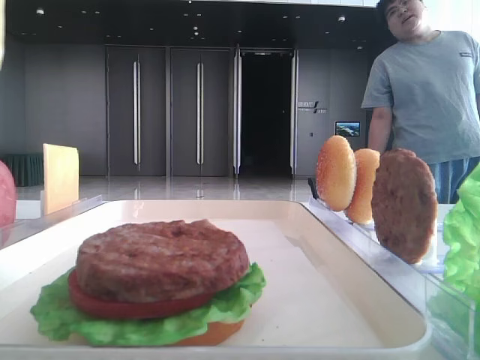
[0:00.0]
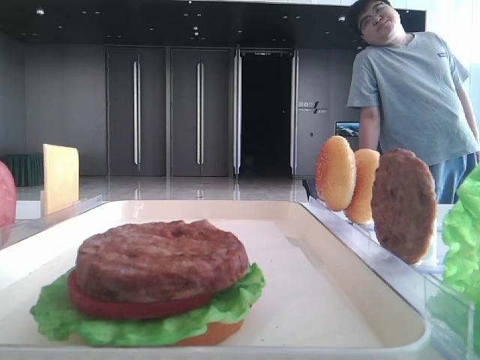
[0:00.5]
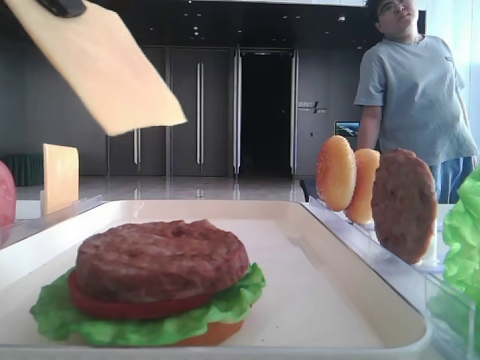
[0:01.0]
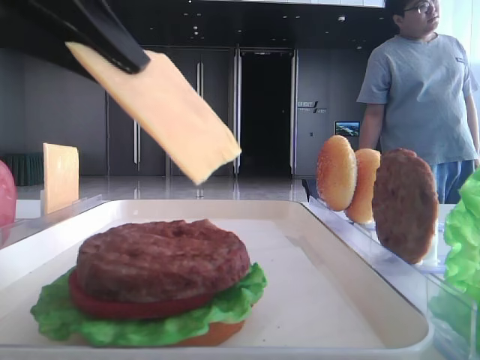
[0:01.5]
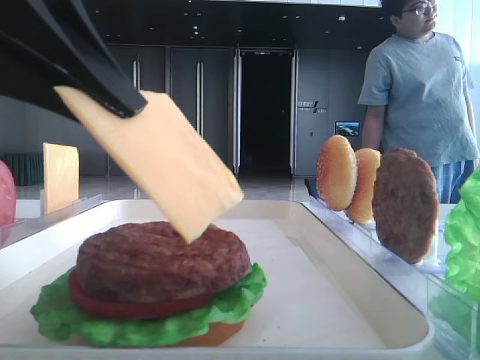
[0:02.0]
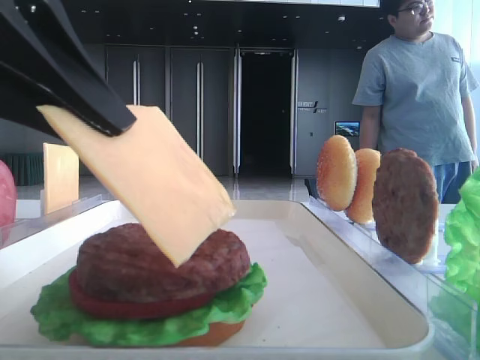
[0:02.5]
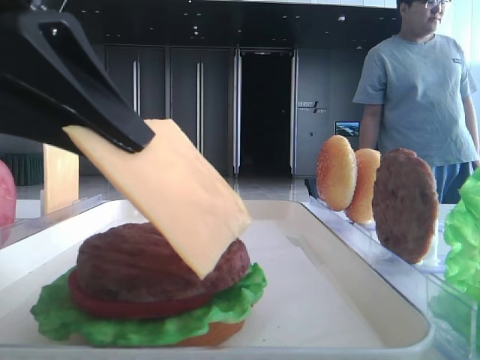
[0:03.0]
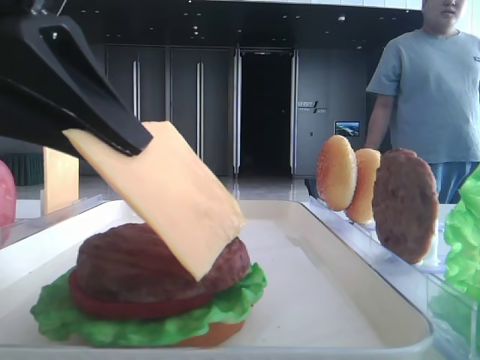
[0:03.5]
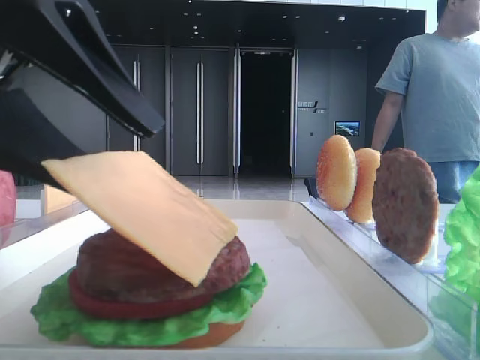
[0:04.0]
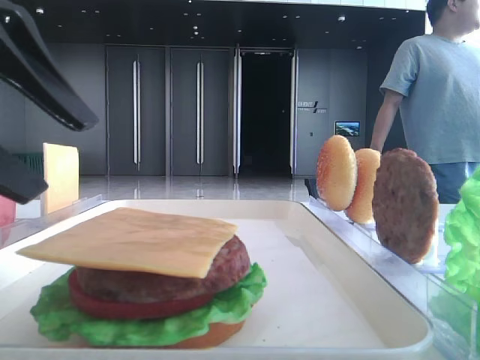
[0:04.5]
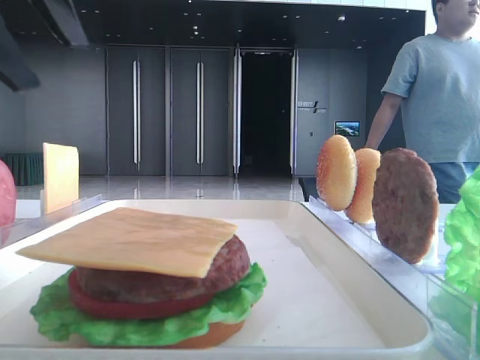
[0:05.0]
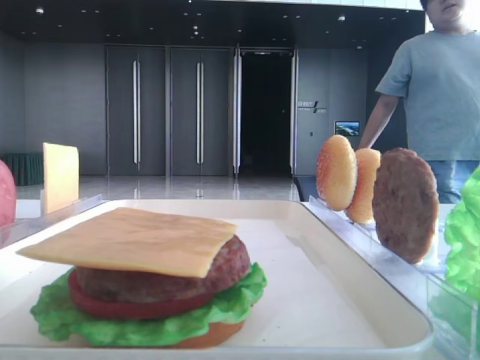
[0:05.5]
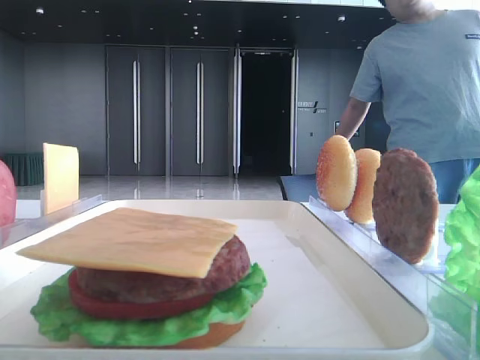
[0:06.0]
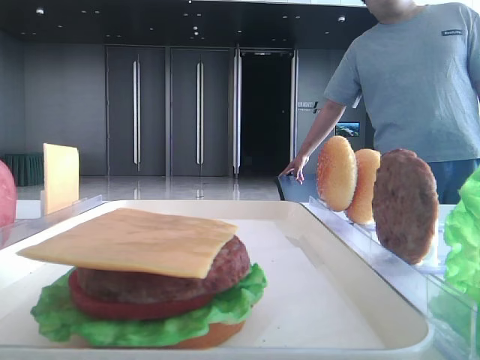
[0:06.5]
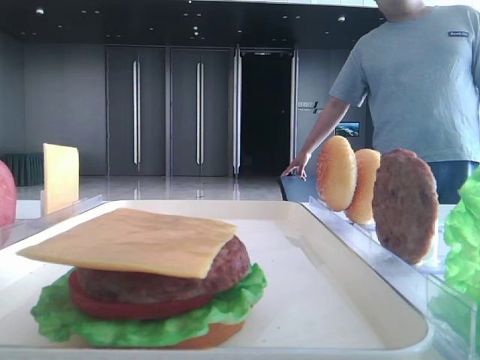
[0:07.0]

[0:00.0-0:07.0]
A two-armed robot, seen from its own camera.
Step, 0:00.0 to 0:04.0: Place the cheese slice on the patty with the left hand.
0:00.0 to 0:02.0: The left gripper is displaced downward by roughly 15 cm.
0:02.0 to 0:03.5: There are only small adjustments of the grippers.
0:03.5 to 0:05.0: The left gripper shifts about 15 cm upward, forward and to the left, and opens its fingers.
0:05.0 to 0:07.0: The left gripper travels backward and to the left by roughly 30 cm.

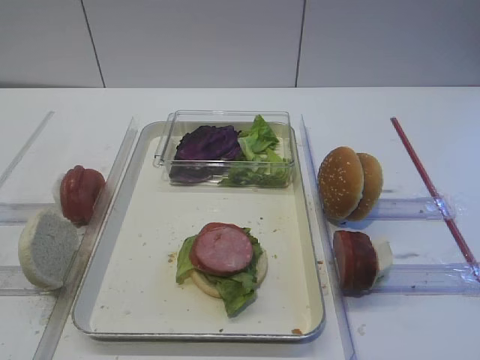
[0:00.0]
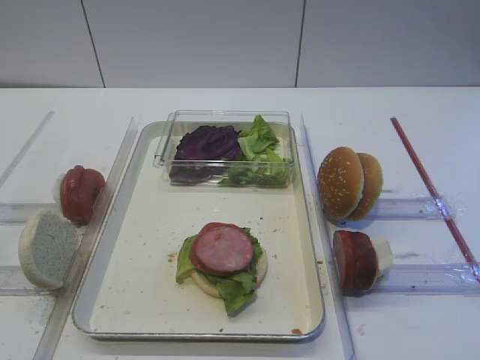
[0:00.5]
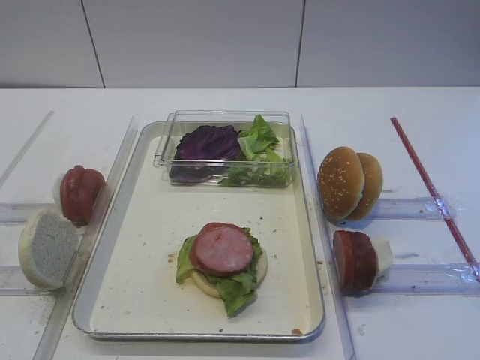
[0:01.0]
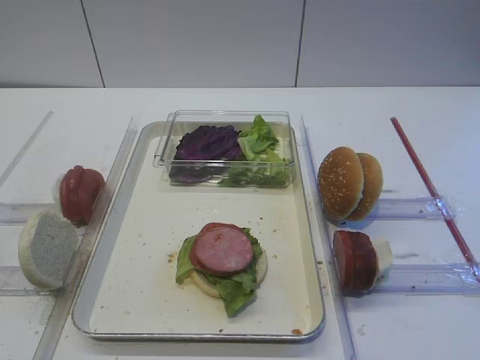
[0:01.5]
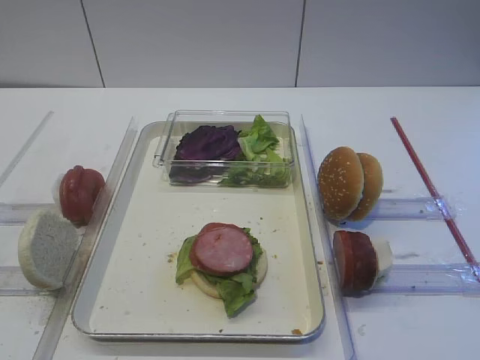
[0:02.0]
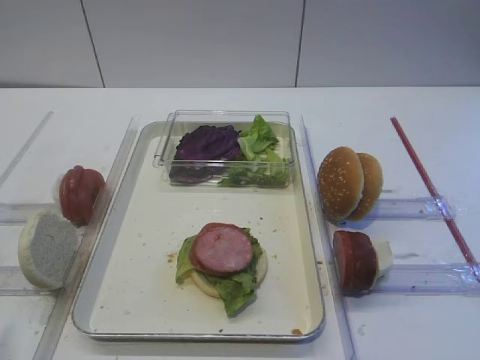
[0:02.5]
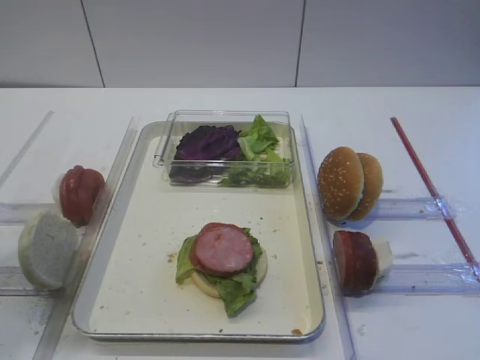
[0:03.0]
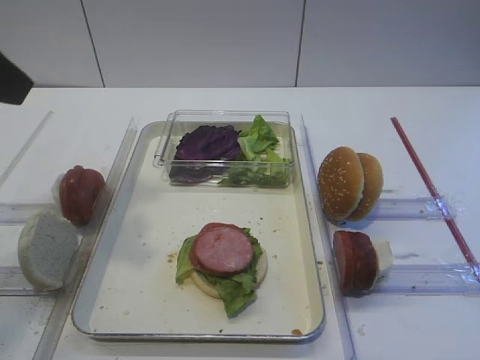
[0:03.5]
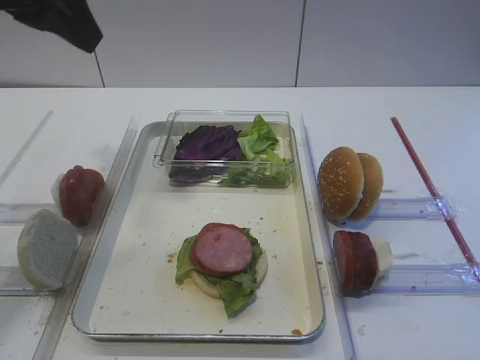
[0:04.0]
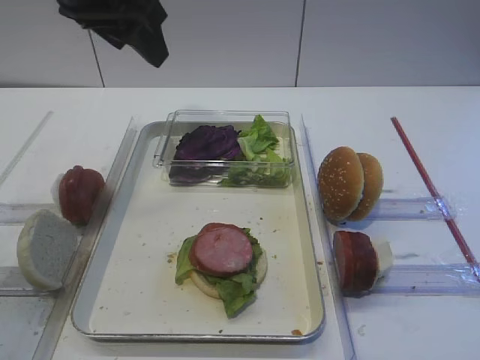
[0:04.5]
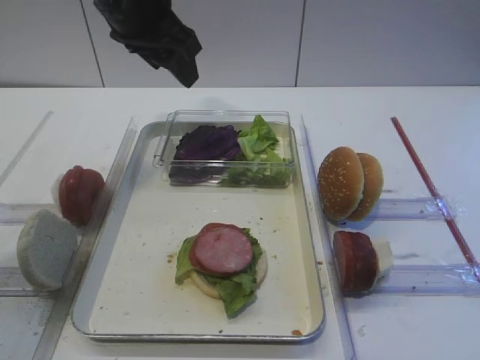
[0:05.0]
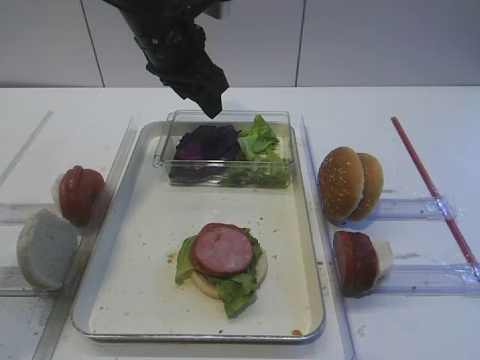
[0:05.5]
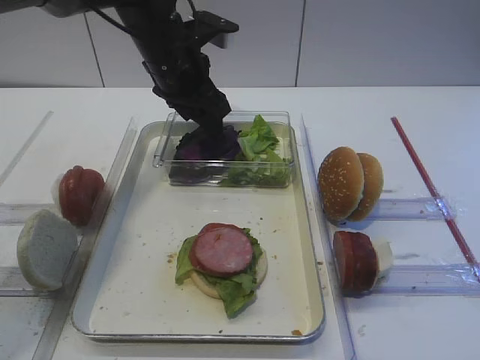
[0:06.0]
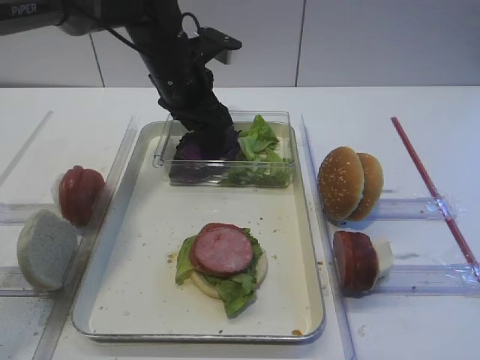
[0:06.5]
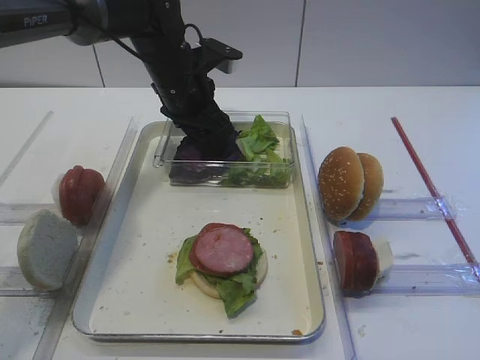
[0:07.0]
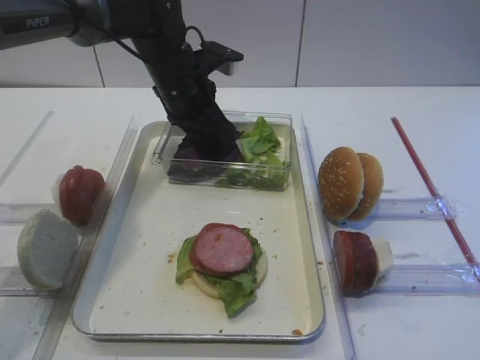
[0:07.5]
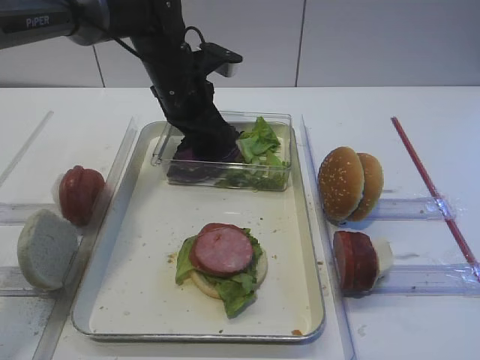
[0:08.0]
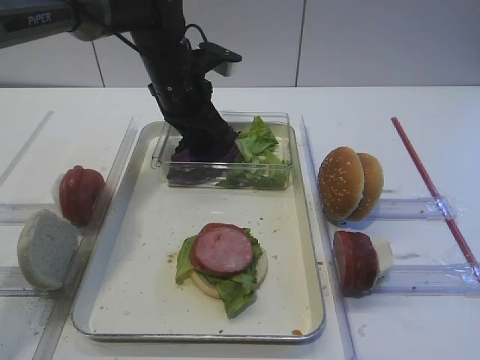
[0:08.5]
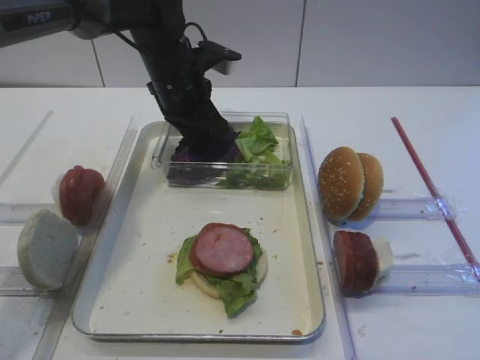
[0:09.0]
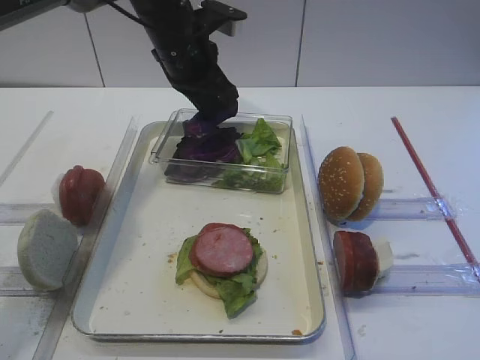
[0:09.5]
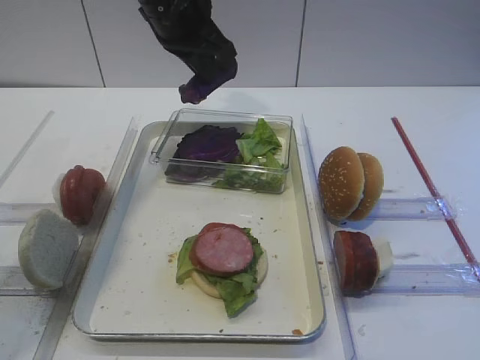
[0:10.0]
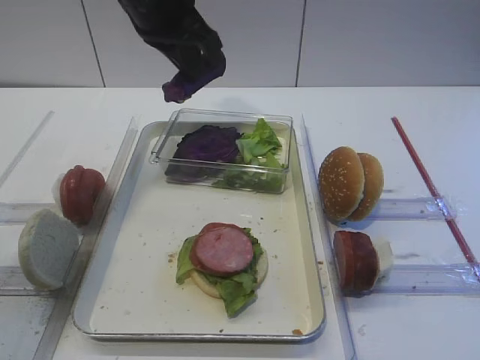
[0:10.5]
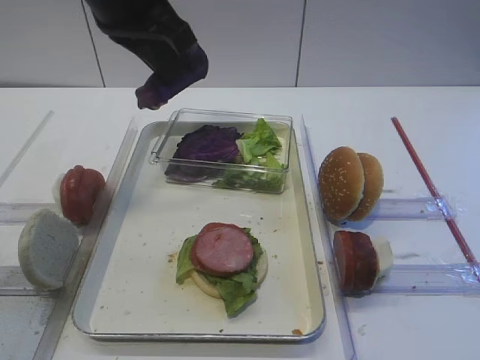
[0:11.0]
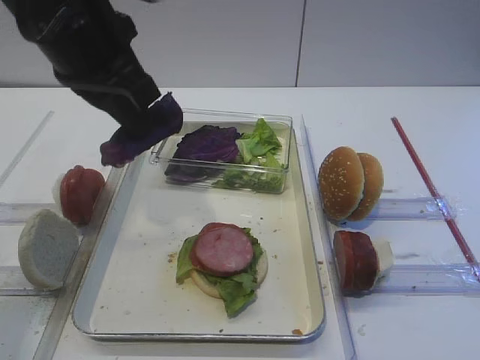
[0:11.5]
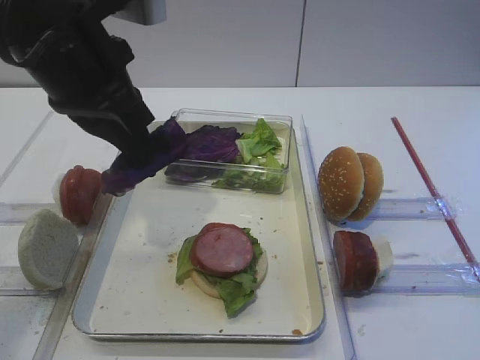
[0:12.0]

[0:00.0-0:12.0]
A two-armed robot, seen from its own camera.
Step, 0:00.0 to 0:10.0: Pick up the purple cabbage with the left gripper.
0:02.0 to 0:04.0: The left gripper is displaced forward and upward by approximately 30 cm.
0:04.0 to 0:06.0: The left gripper moves forward, downward and to the right, some 25 cm.
0:06.0 to 0:08.0: The left gripper closes up.
0:08.0 to 0:10.0: The left gripper goes about 10 cm upward.
0:10.0 to 0:12.0: The left gripper heads backward, covering roughly 15 cm.

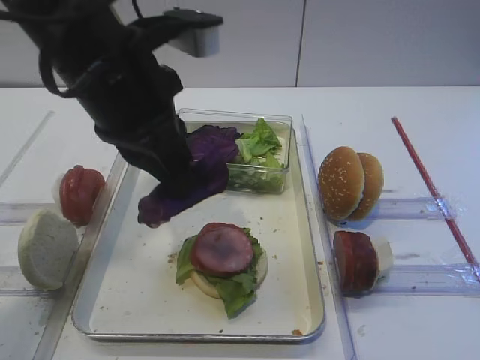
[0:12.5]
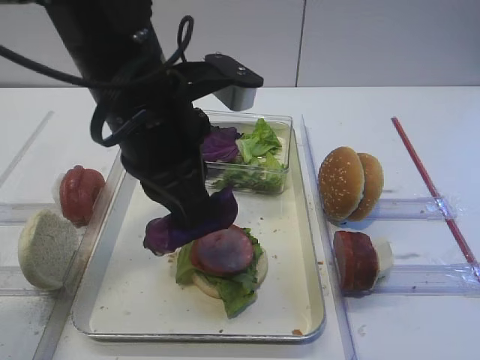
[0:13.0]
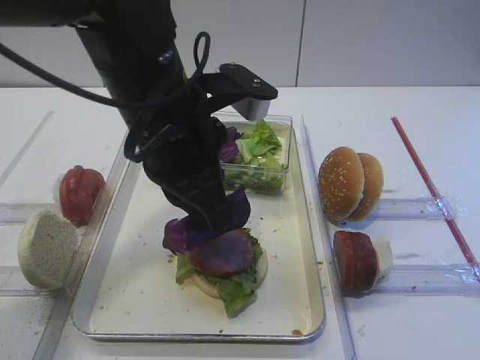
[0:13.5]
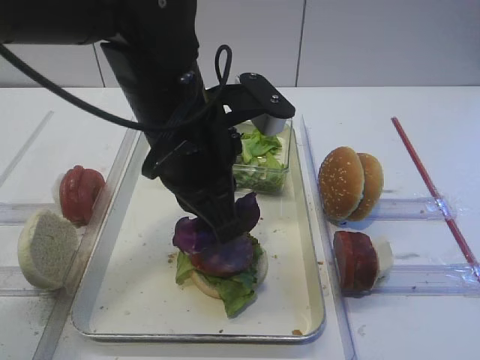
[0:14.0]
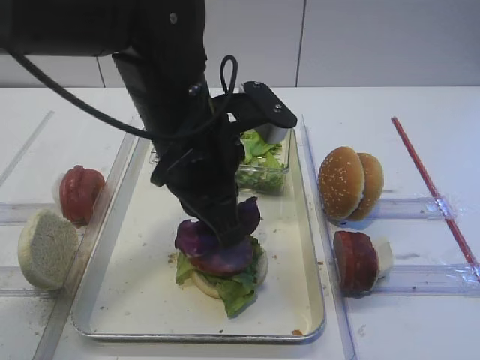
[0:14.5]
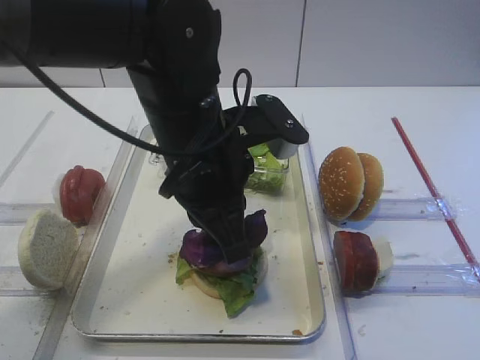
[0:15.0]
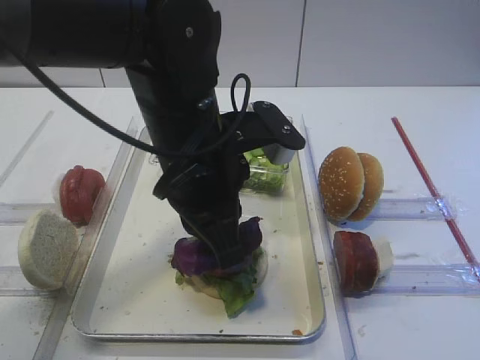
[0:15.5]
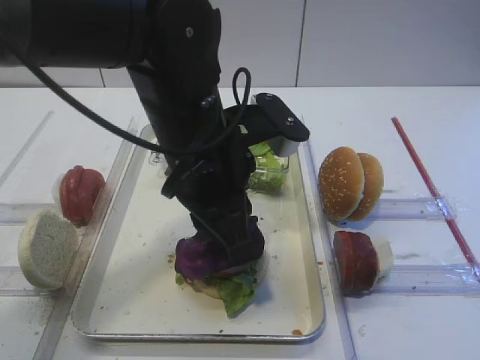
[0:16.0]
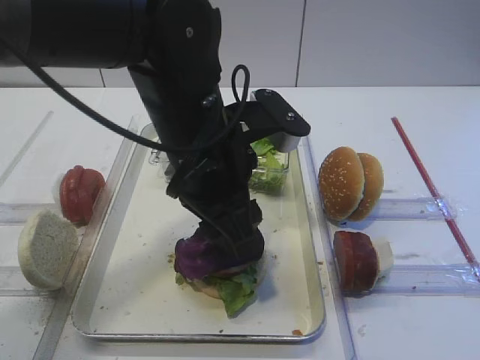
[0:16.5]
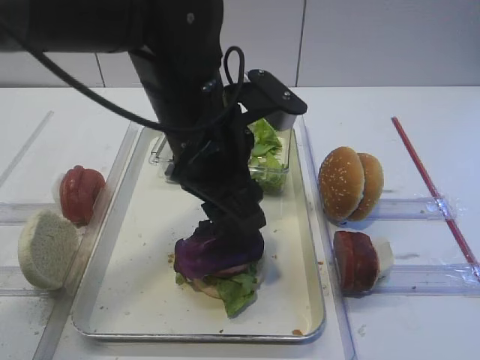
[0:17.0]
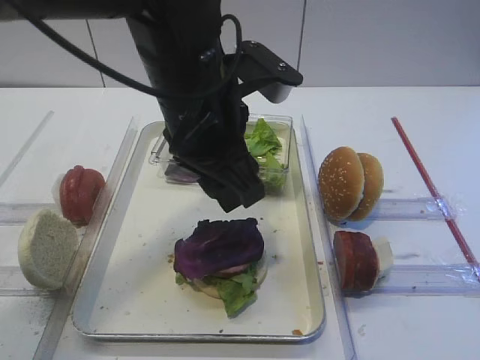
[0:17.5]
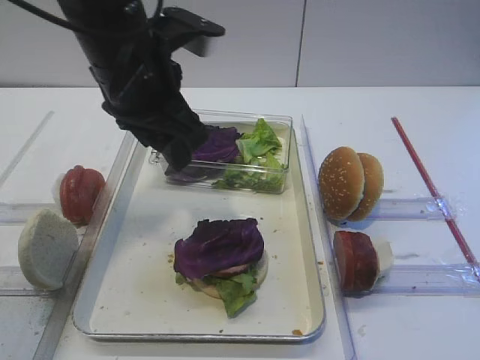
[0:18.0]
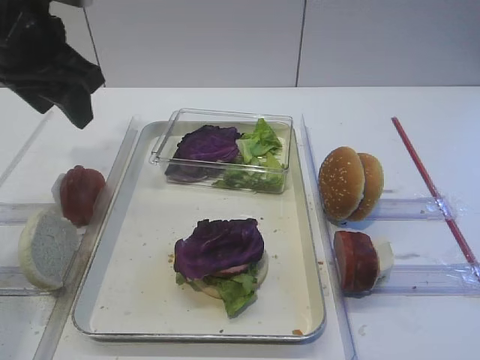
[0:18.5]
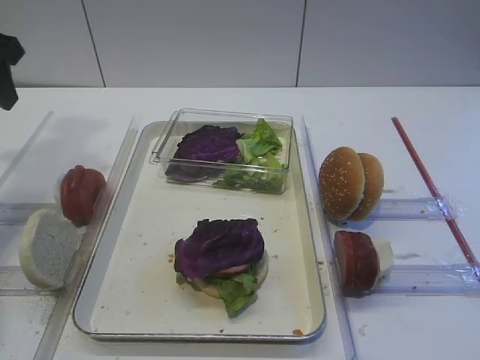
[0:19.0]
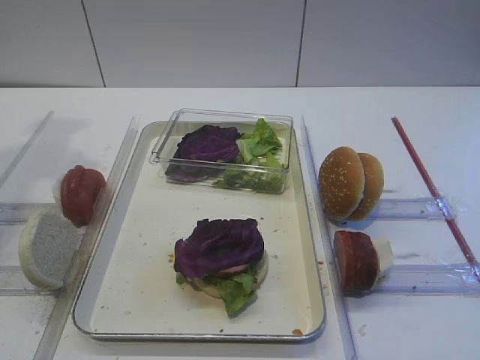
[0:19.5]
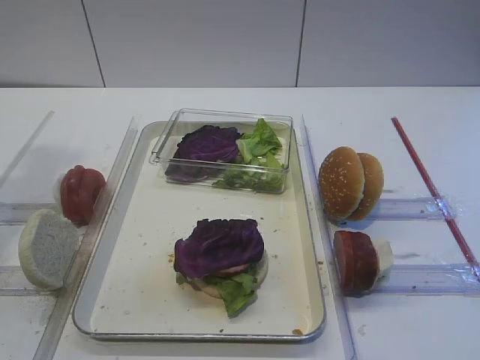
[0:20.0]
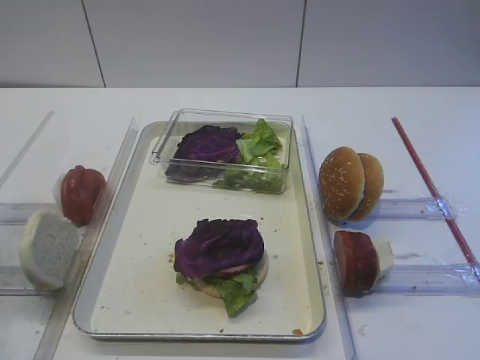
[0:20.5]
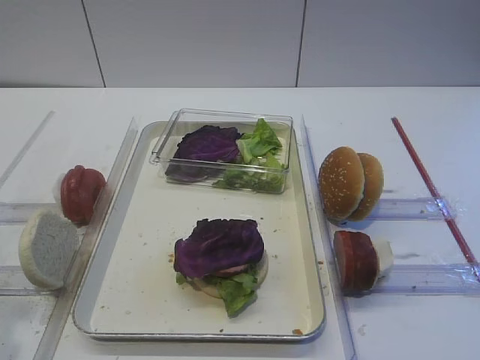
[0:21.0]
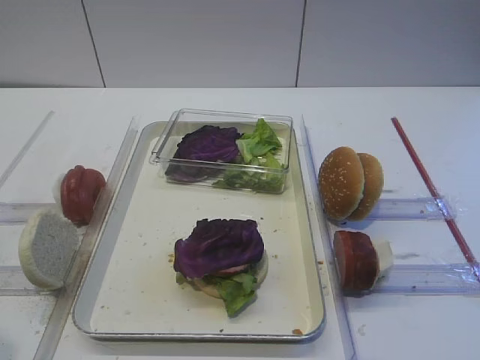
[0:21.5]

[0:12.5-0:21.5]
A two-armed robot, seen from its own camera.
Step, 0:12.5 to 0:17.5: Place the purple cabbage on the cutlet with the left gripper.
0:12.5 to 0:14.5: The left gripper travels to the right and downward by some 10 cm.
0:14.5 to 0:17.0: The left gripper opens up.
0:17.0 to 0:19.5: The left gripper is displaced to the left by about 30 cm.
0:19.5 to 0:21.5: The left gripper heads backward, covering some 30 cm.
